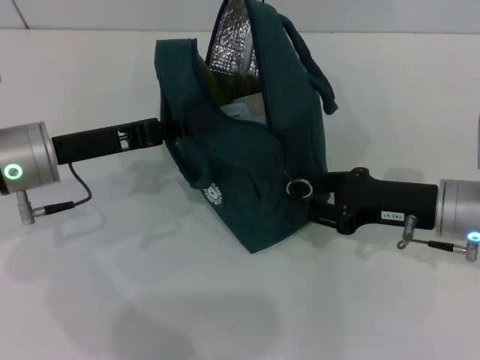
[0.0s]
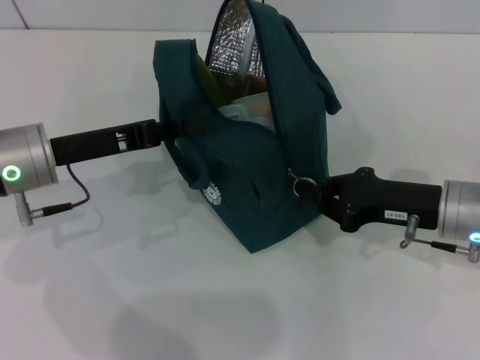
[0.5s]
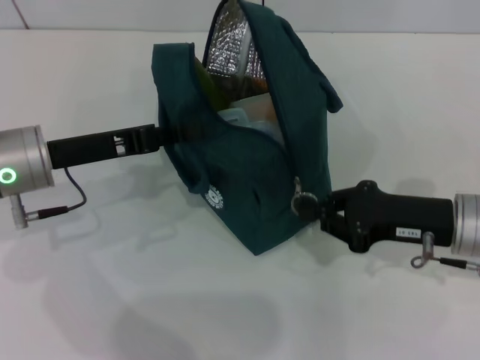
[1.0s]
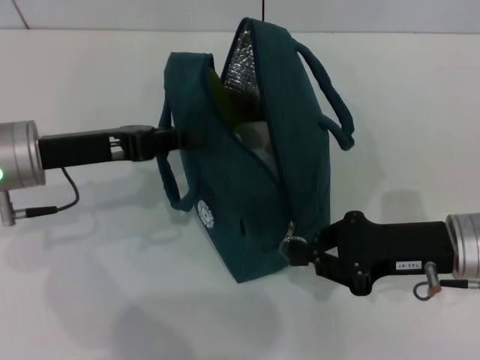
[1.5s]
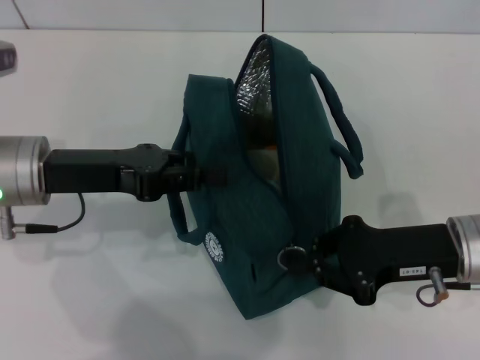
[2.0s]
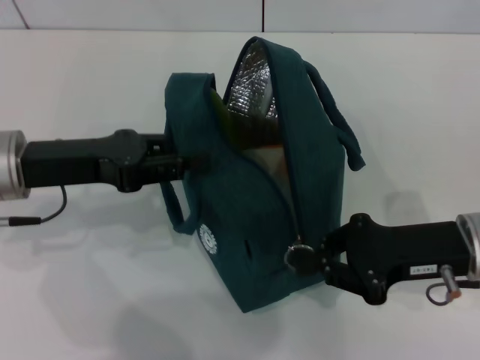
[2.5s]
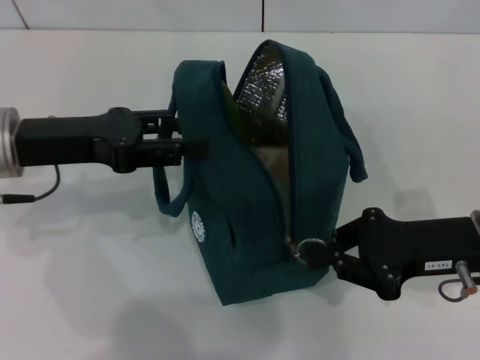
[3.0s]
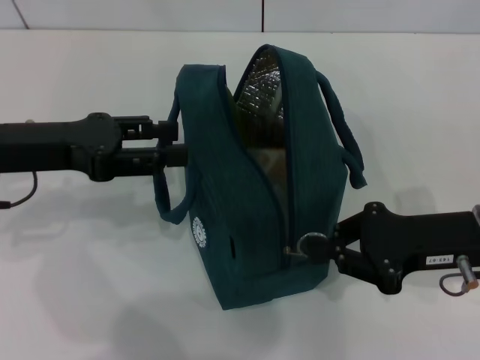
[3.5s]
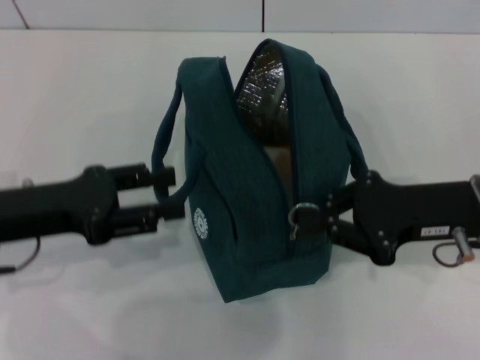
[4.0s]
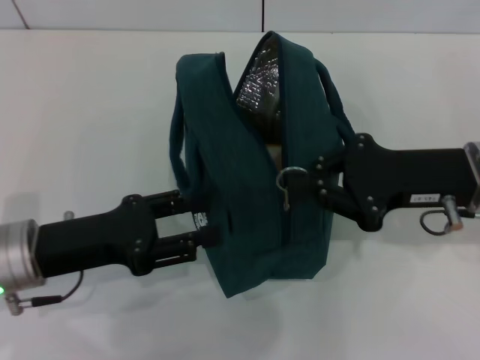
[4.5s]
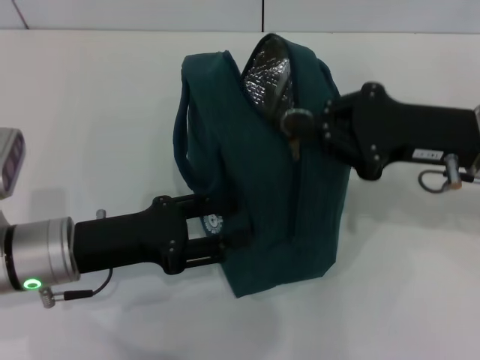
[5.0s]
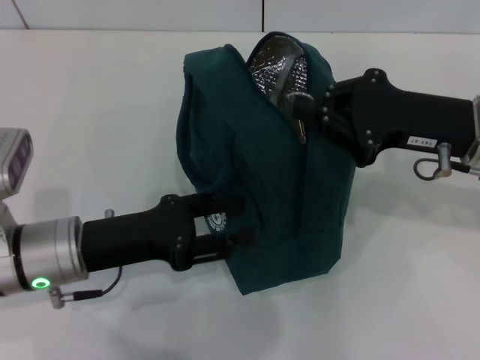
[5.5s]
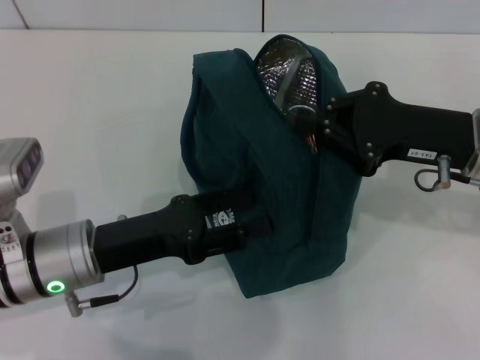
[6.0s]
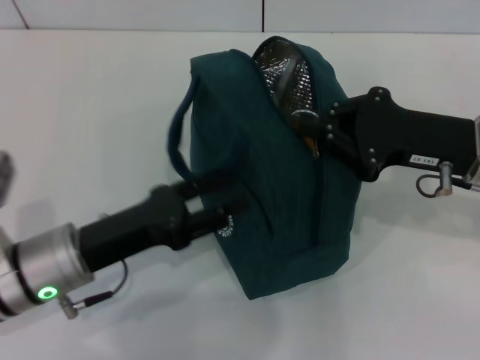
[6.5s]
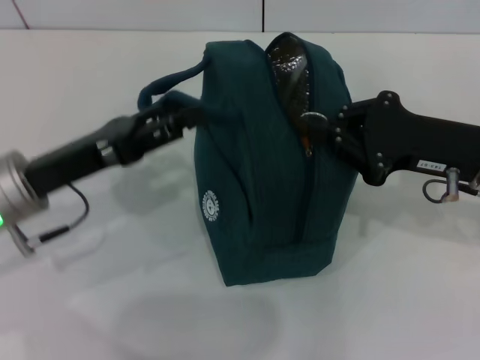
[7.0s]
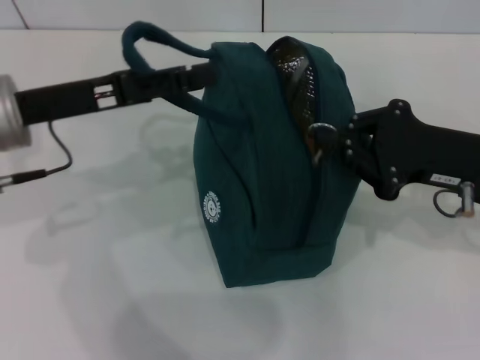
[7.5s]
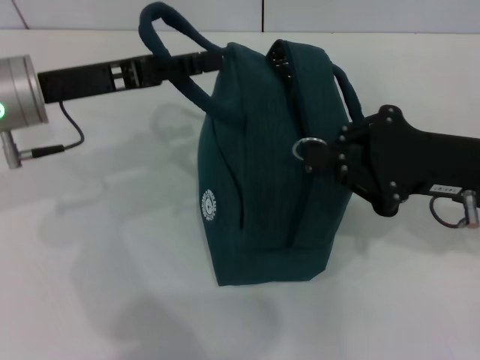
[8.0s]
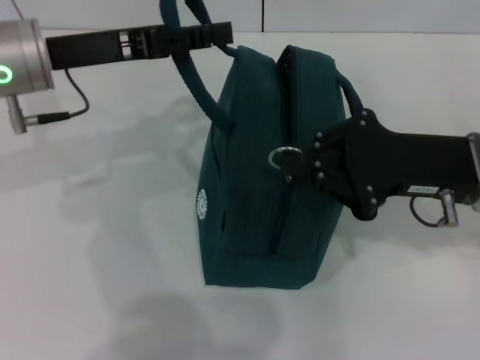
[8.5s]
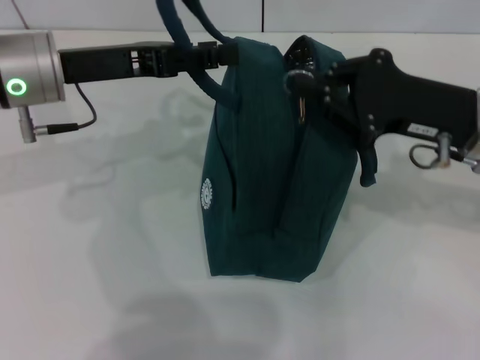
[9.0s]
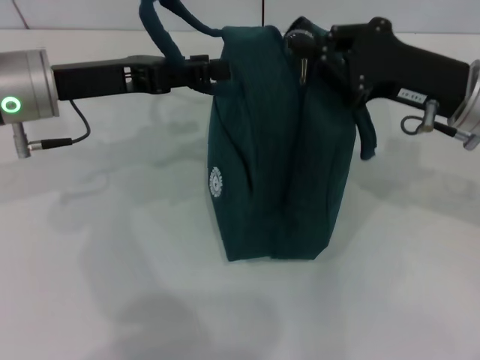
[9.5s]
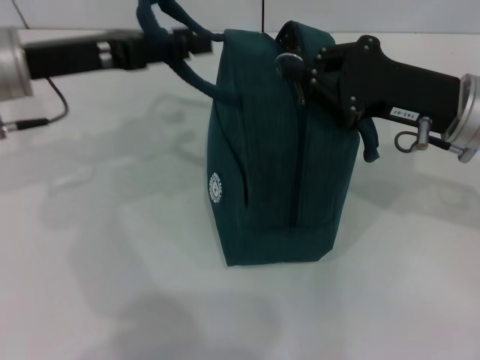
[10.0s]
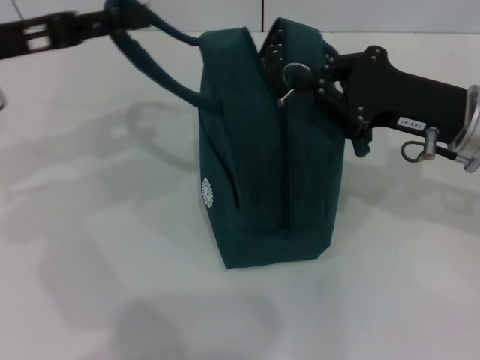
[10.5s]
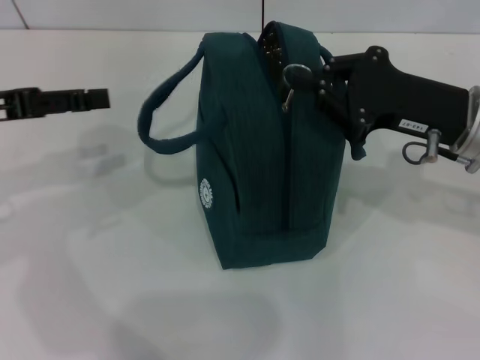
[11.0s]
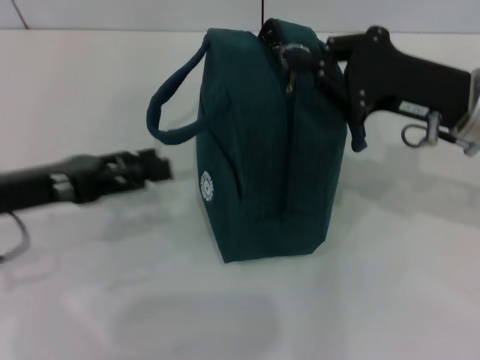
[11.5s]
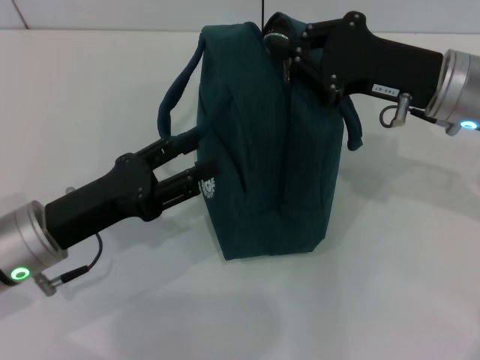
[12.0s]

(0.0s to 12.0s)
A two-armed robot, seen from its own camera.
Step, 0.0s - 3.0s: Hold the lunch bag with your left hand.
0.0s - 2.0s: The right gripper closes up.
2.0s - 4.0s: The left gripper shifts by roughly 5 cm, and opens.
4.0s - 6.0s: The left gripper travels to the right and downward by about 10 cm.
6.0s - 8.0s: The left gripper shifts approximately 15 cm upward and forward.
10.0s - 12.0s: The left gripper heads downward and backward, covering some 15 cm.

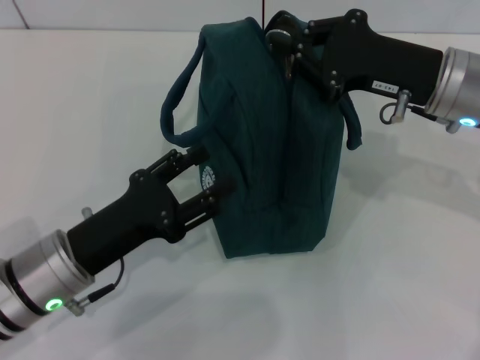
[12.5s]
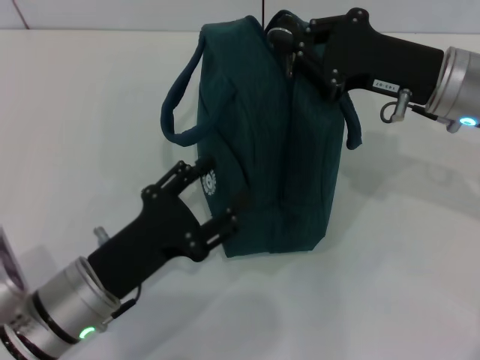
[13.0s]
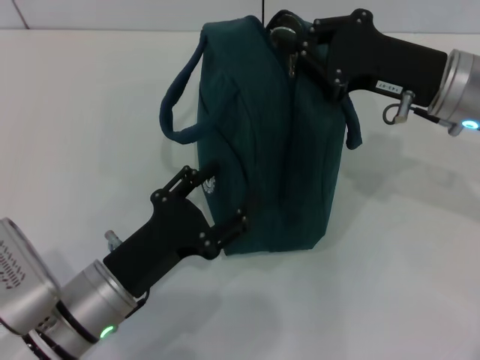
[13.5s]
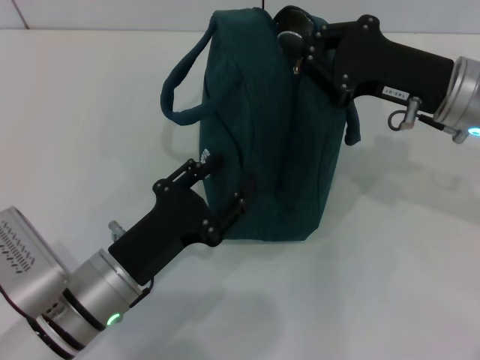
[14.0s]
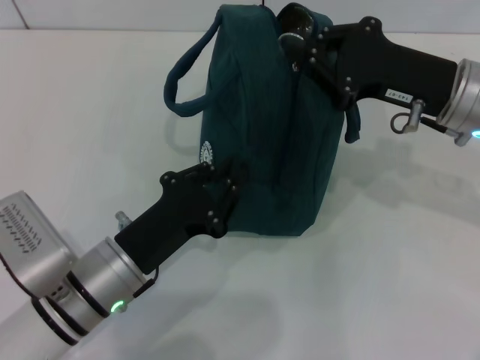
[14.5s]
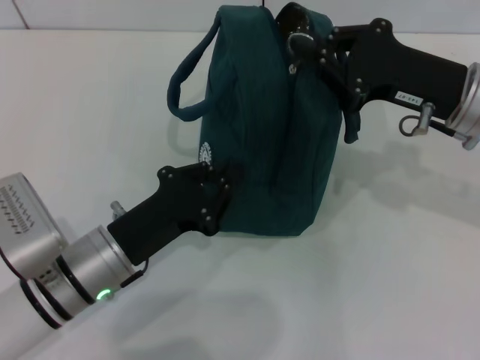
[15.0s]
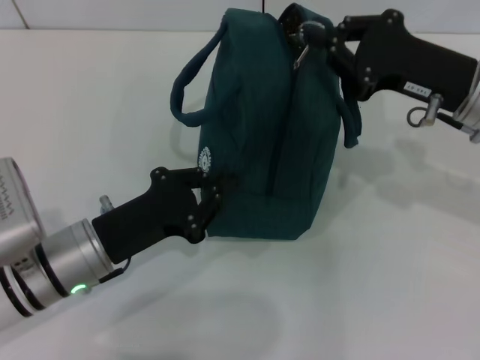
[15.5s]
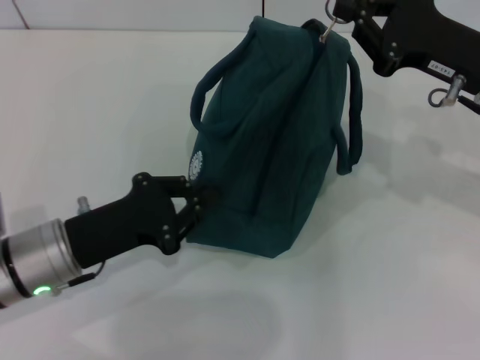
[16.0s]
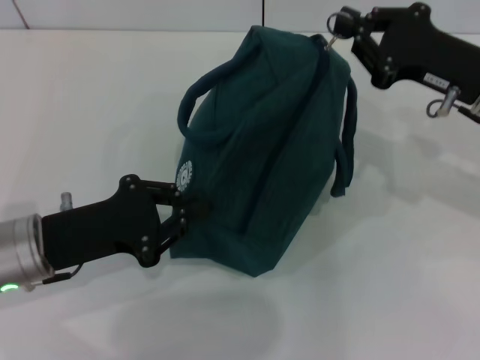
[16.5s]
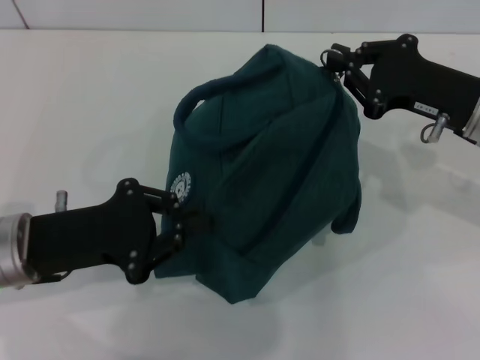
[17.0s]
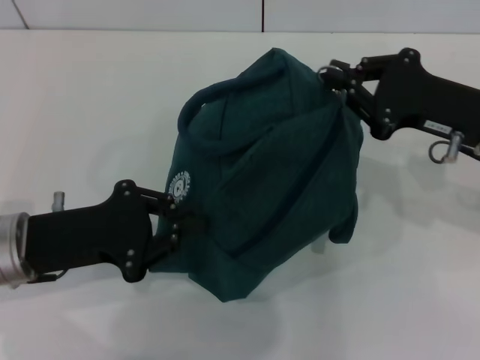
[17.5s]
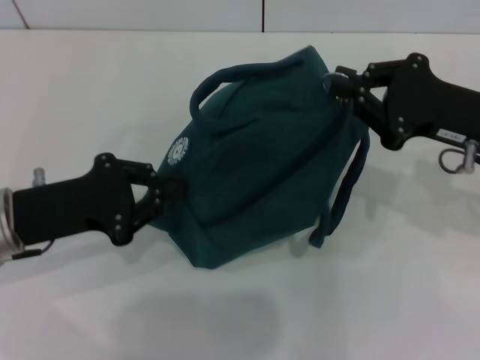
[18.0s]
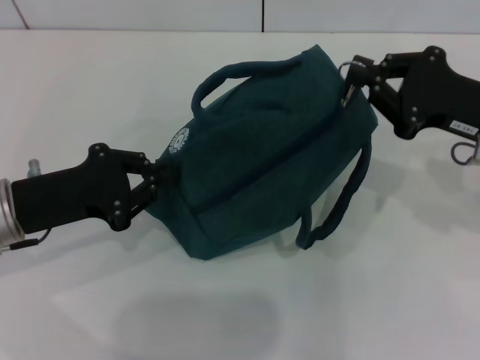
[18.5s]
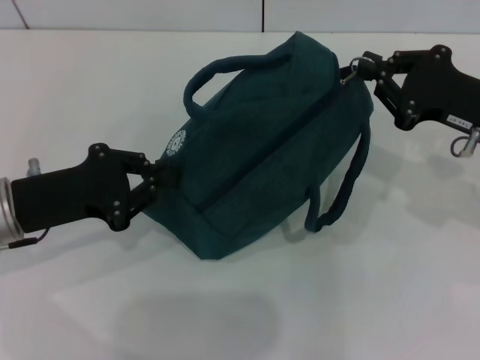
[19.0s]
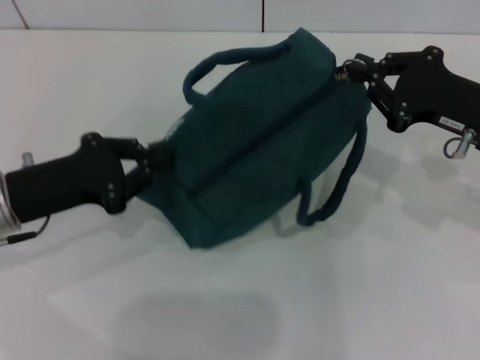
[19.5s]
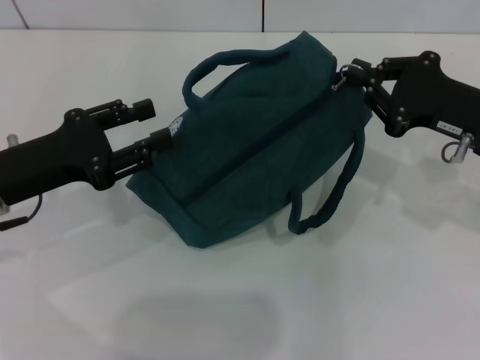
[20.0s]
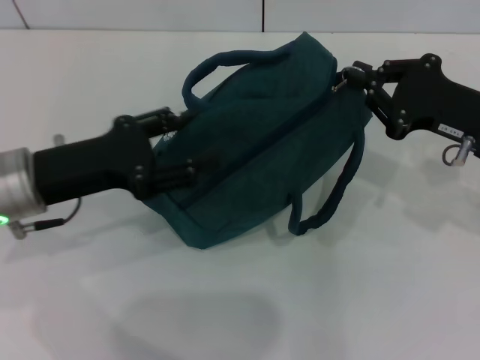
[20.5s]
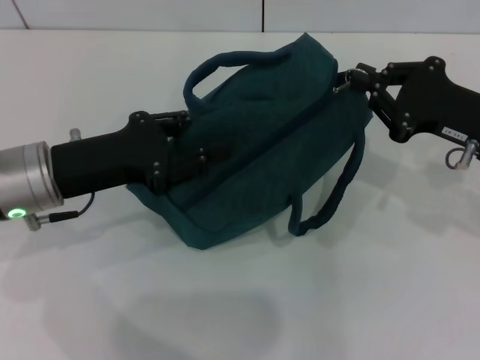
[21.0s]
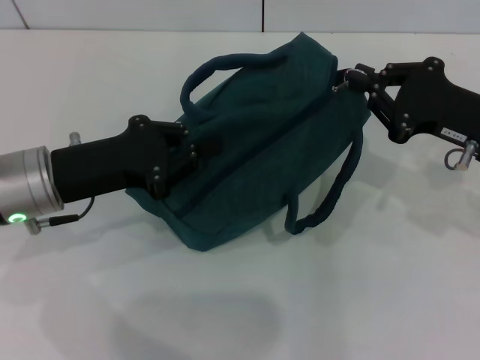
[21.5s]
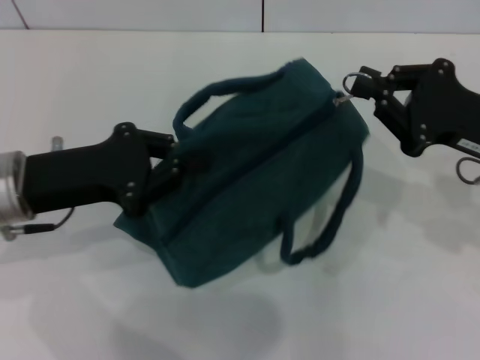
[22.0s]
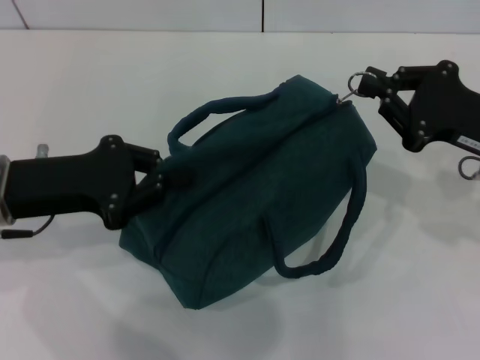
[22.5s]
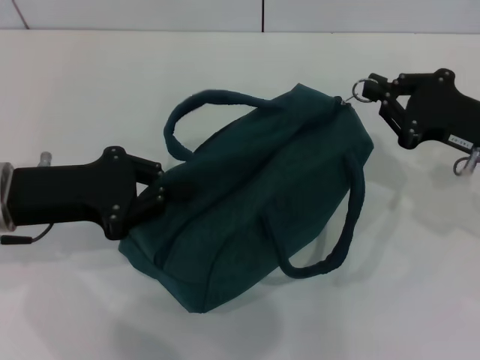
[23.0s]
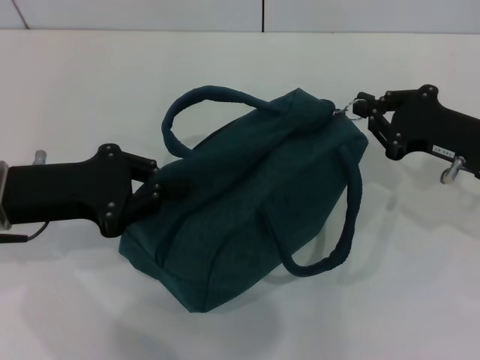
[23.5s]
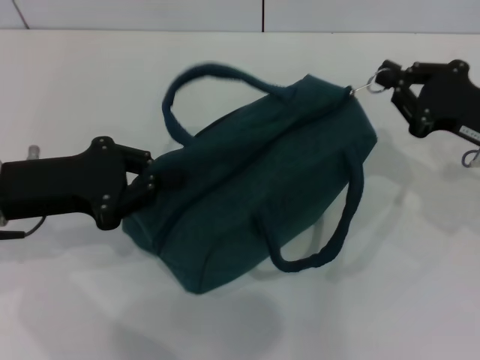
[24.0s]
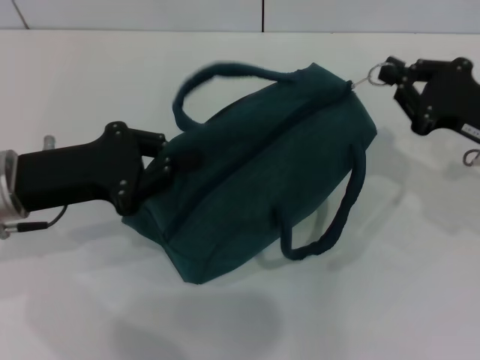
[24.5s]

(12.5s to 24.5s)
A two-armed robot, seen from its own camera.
12.5s - 14.5s: The left gripper closes its fingers.
14.5s - 16.5s: The left gripper shifts about 10 cm to the left, and closes.
18.5s - 20.5s: The left gripper opens.
20.5s - 22.5s: The left gripper closes.
22.5s - 24.5s: There are only small adjustments of the grippers.

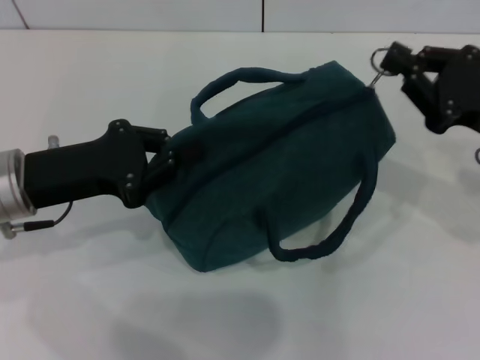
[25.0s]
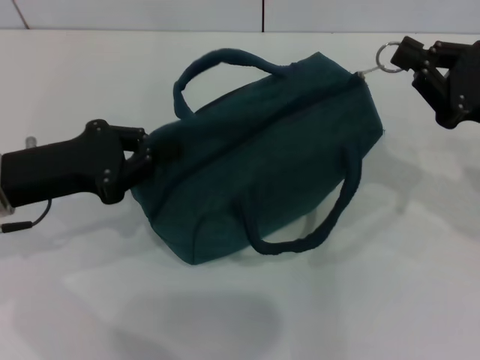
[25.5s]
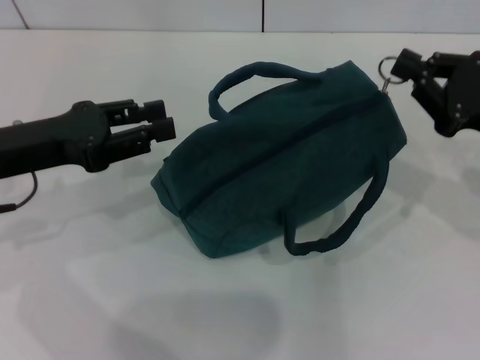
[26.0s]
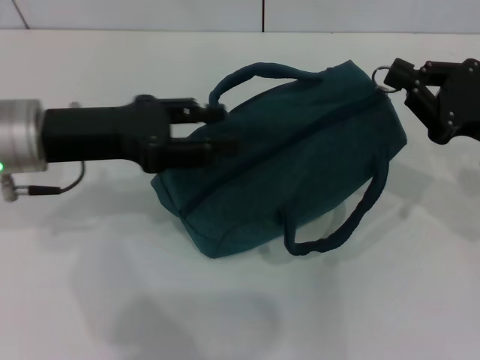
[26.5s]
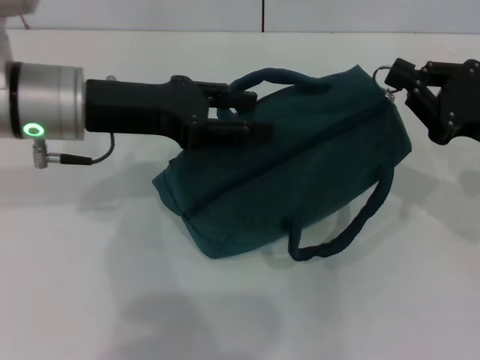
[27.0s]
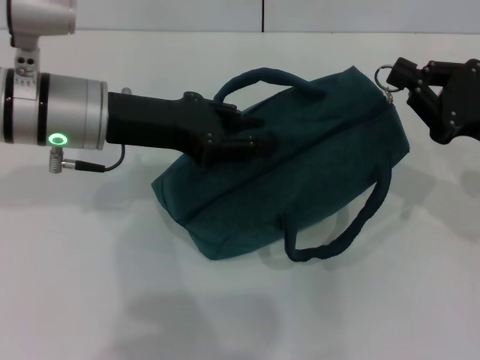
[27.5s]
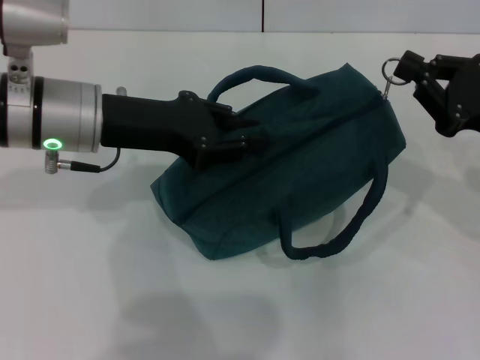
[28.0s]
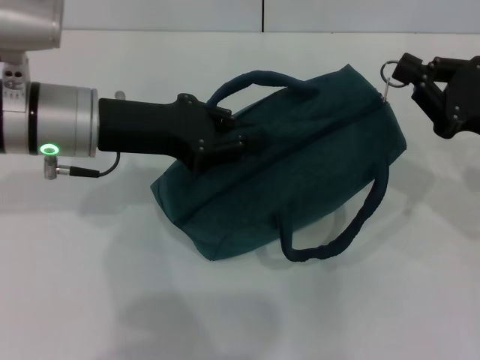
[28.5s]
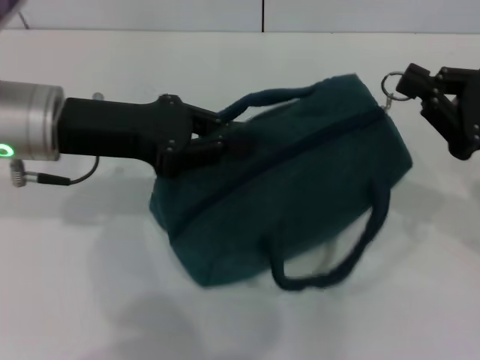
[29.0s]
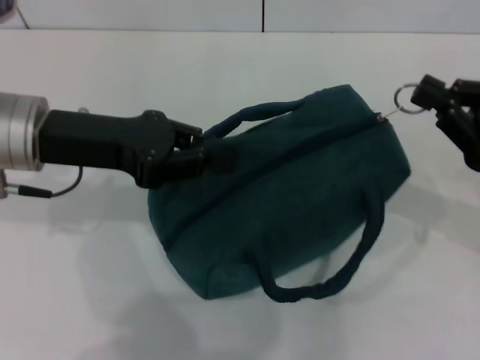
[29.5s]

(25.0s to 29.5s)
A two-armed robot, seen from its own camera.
25.0s - 27.0s: The left gripper travels upward, to the right and forward by roughly 10 cm, and opens up.
27.0s - 29.5s: The left gripper closes.
